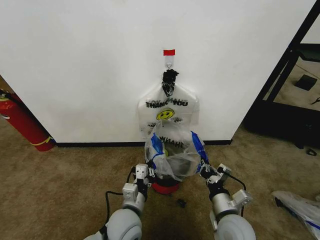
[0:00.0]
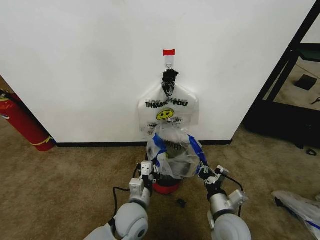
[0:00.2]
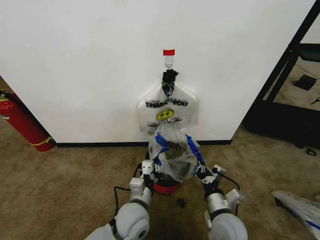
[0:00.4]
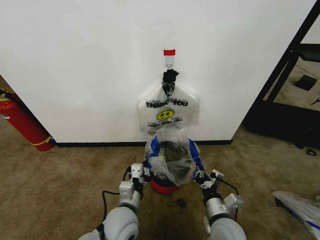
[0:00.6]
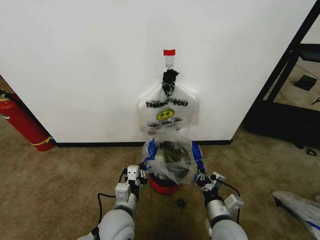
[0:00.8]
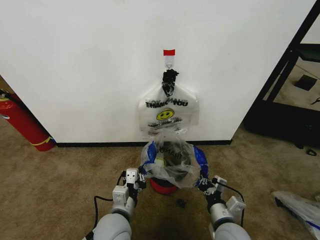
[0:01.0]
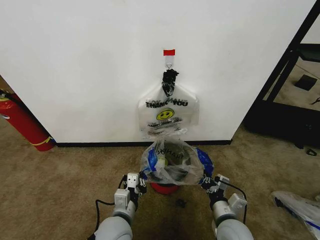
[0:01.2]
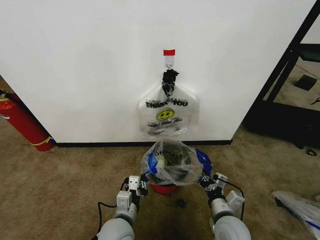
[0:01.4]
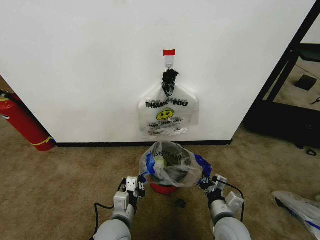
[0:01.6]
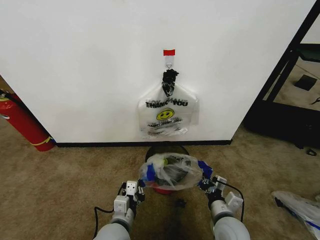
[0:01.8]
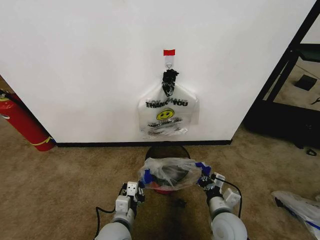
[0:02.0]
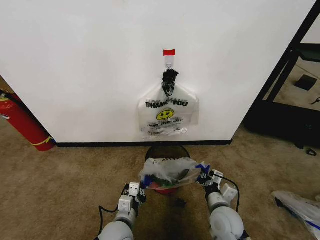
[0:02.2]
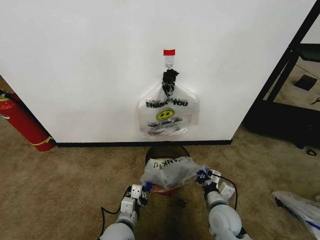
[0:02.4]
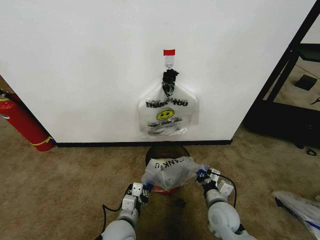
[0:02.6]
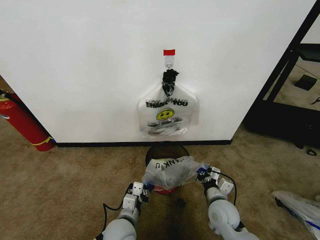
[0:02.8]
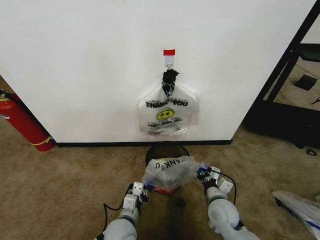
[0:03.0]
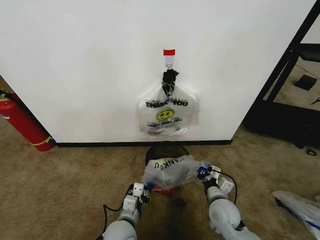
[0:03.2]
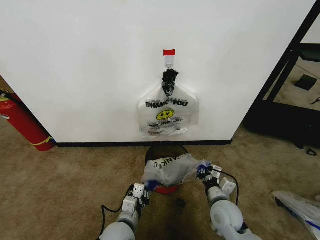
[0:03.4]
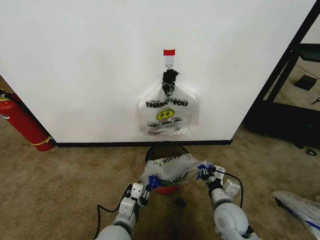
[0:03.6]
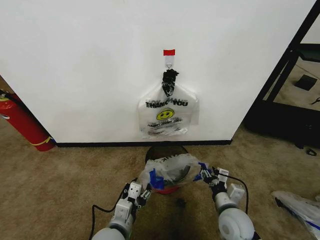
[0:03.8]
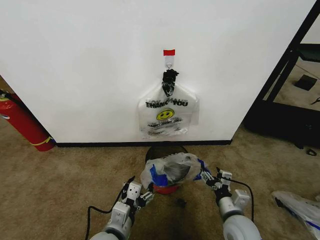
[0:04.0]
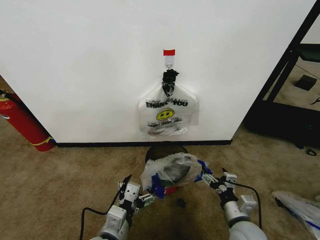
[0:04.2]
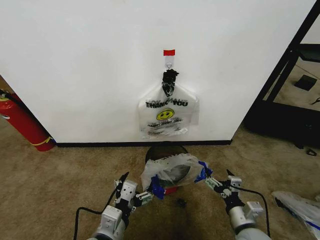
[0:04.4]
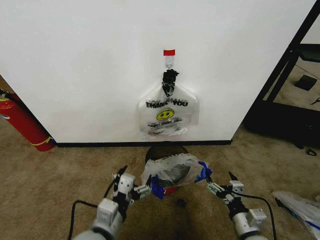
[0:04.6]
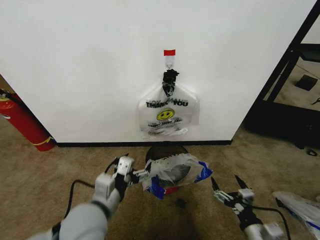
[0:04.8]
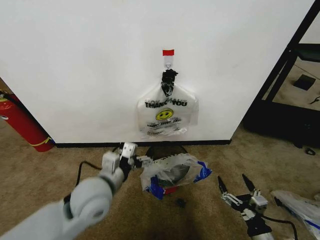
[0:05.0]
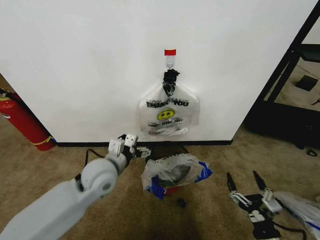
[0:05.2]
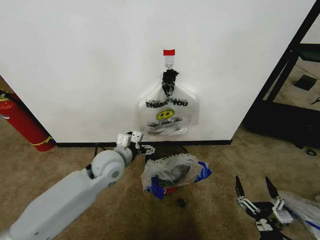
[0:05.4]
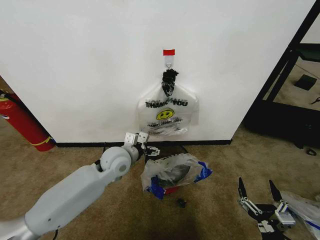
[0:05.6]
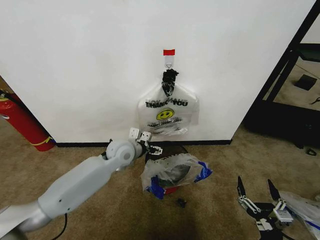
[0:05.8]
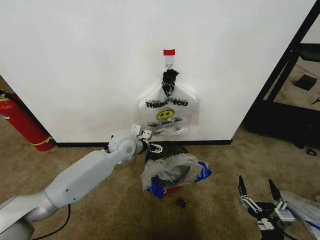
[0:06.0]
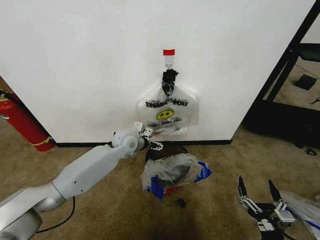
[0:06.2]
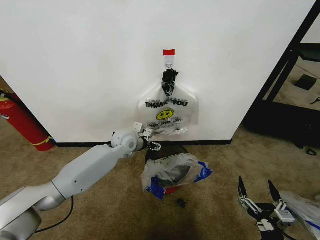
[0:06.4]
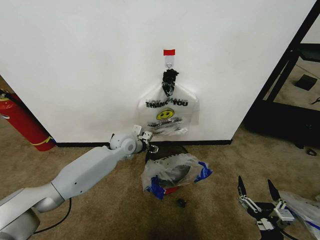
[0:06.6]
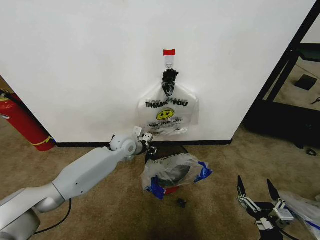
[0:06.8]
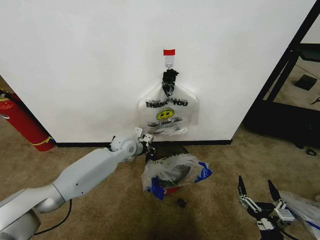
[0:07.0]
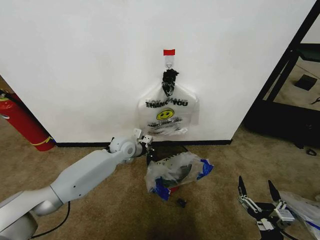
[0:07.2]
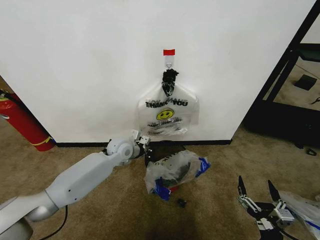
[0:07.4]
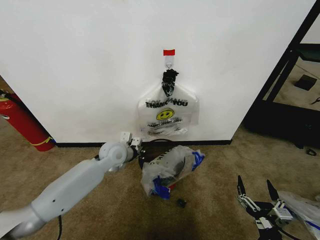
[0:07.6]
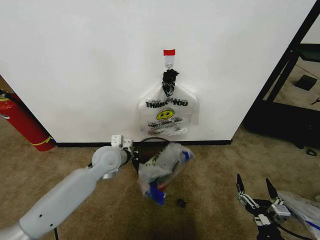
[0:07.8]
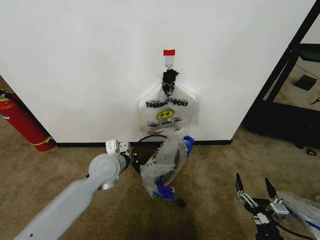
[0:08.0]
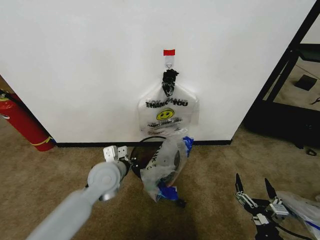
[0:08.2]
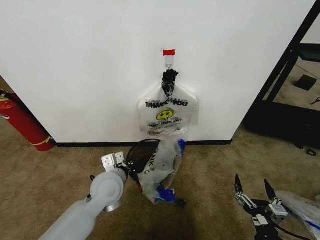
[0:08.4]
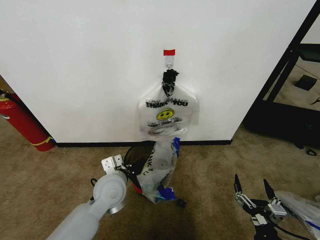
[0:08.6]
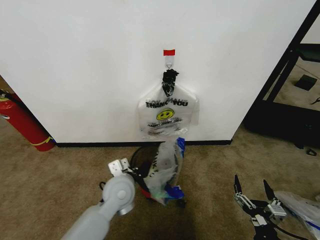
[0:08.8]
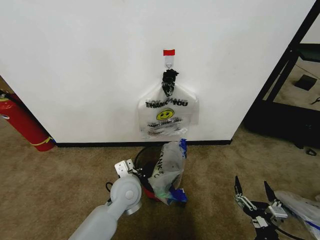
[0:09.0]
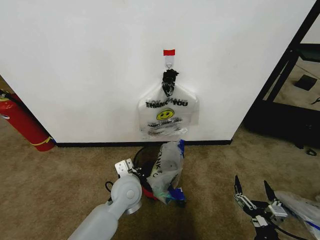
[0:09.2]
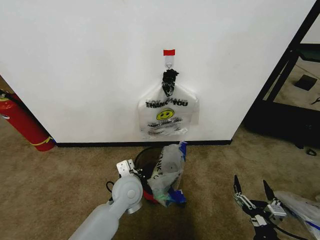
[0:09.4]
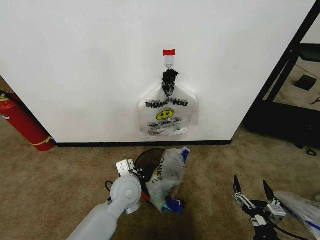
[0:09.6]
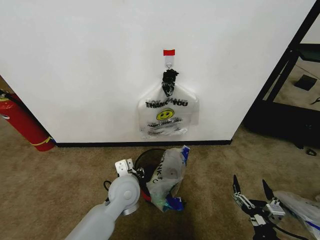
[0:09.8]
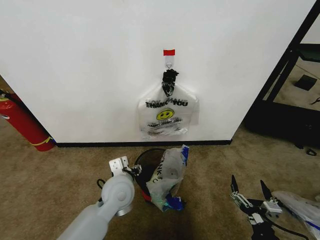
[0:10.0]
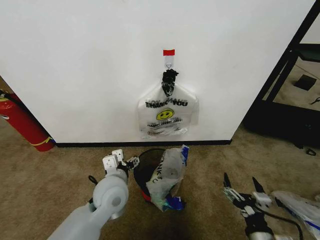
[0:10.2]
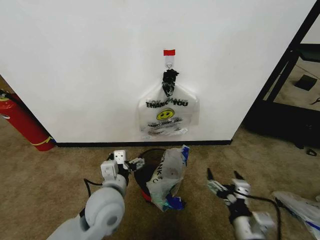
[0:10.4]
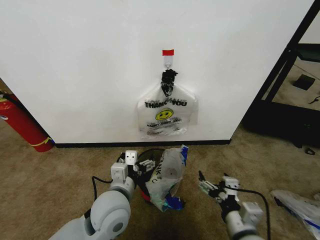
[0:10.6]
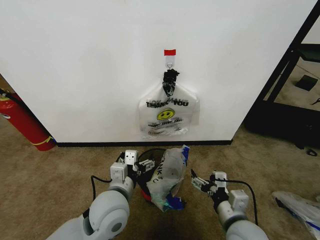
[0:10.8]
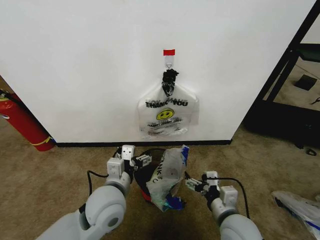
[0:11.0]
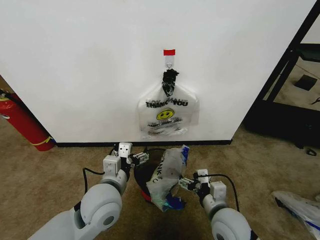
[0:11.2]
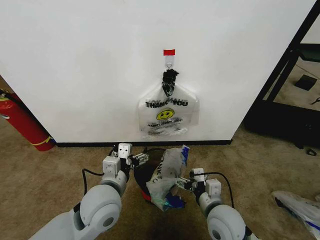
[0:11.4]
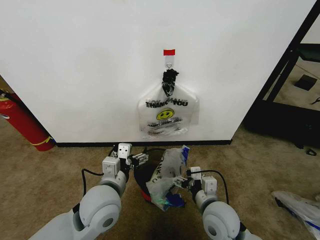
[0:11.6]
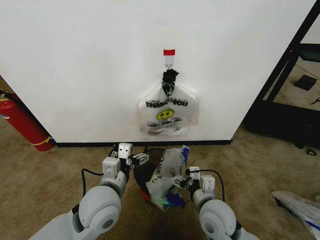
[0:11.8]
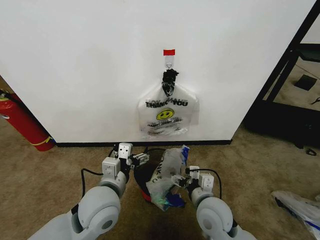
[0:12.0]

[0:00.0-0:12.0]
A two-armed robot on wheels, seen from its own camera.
Task of the whole recording: Pick up the garbage bag from the wall and place it over the trash bin.
0.0 to 1.6 s: The grippers make only small movements.
1.6 to 3.0 s: The left gripper changes place by about 5 cm. Meanwhile the right gripper heads forward, covering some 5 cm.
3.0 to 4.4 s: The left gripper is displaced upward and backward by roughly 15 cm, and opens; the right gripper goes some 10 cm backward and to the right, and opens its fingers.
4.4 to 6.0 s: The left gripper travels forward by roughly 30 cm, while the right gripper is displaced backward by roughly 10 cm.
6.0 to 7.6 s: The left gripper closes its fingers.
7.6 to 9.0 s: The left gripper shifts roughly 15 cm backward and to the right.
9.0 to 10.4 s: The left gripper goes some 10 cm backward and upward, and opens its fingers; the right gripper is displaced upward and to the left by about 10 cm.
10.4 to 12.0 s: The right gripper is displaced forward and to the left by approximately 15 cm.

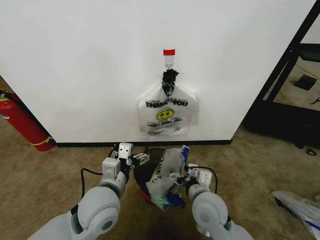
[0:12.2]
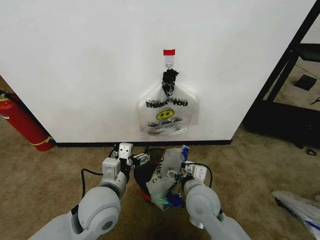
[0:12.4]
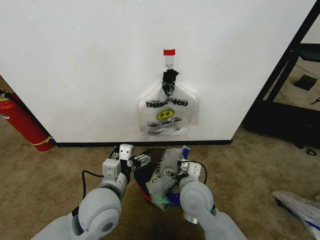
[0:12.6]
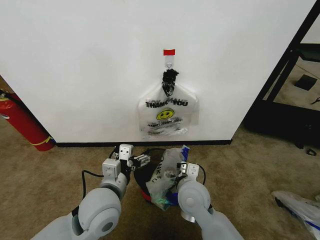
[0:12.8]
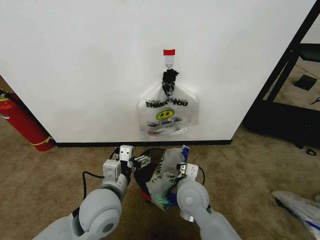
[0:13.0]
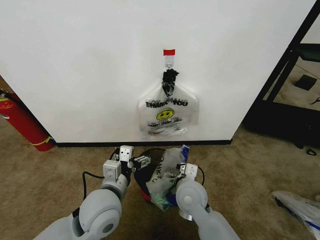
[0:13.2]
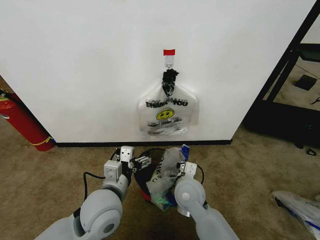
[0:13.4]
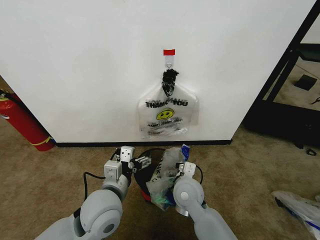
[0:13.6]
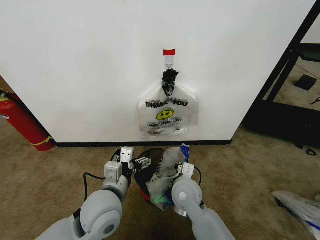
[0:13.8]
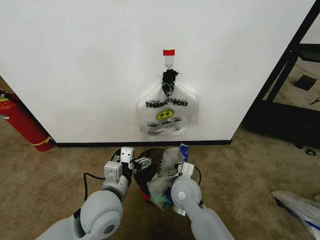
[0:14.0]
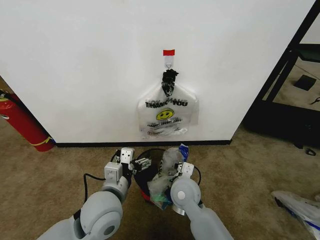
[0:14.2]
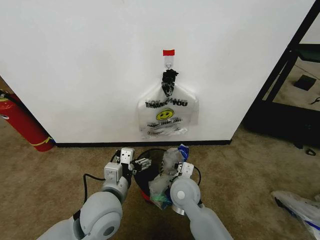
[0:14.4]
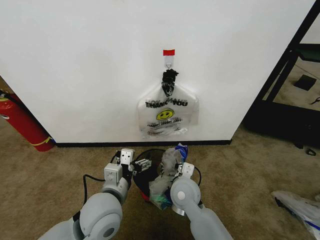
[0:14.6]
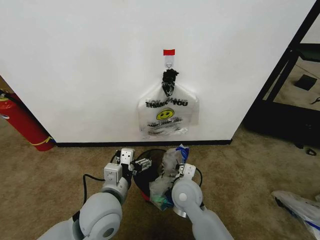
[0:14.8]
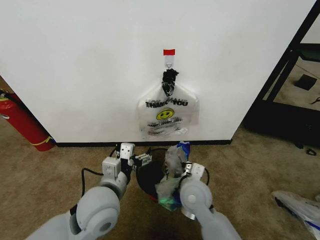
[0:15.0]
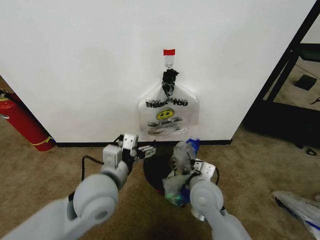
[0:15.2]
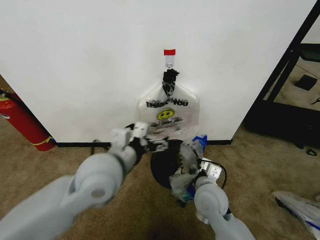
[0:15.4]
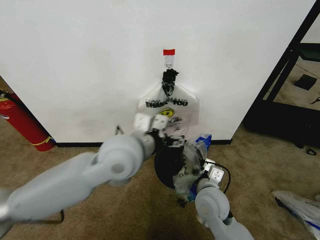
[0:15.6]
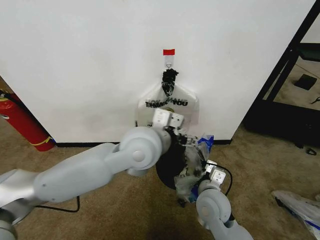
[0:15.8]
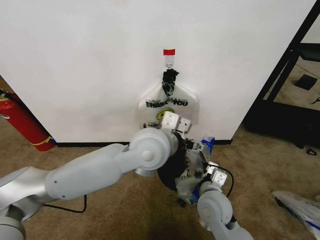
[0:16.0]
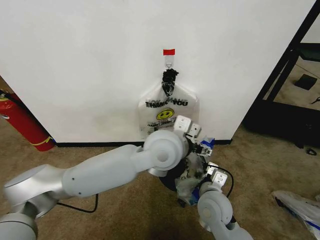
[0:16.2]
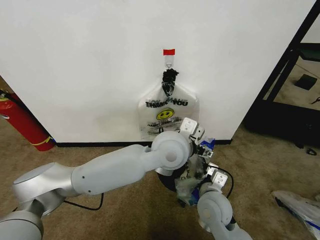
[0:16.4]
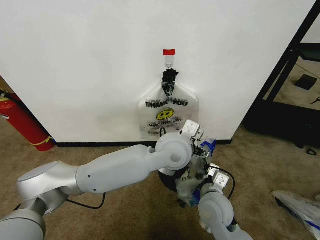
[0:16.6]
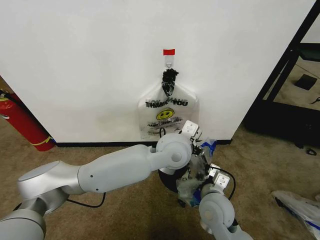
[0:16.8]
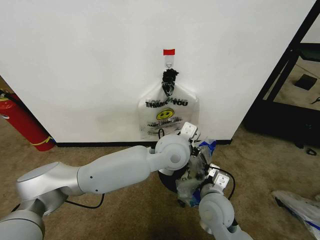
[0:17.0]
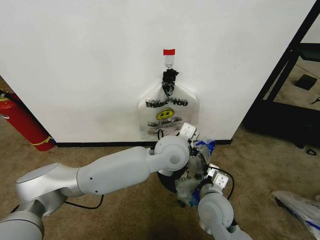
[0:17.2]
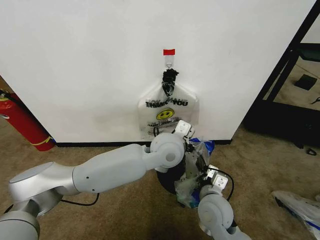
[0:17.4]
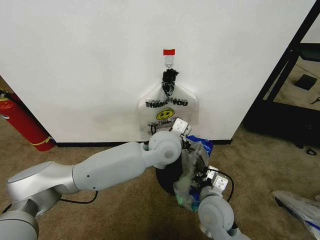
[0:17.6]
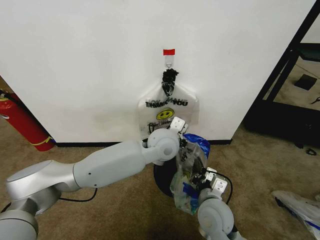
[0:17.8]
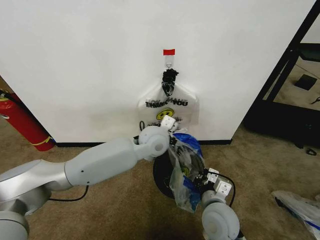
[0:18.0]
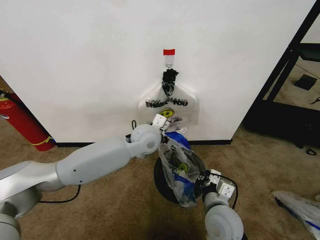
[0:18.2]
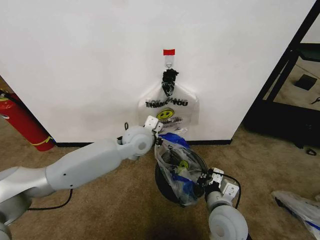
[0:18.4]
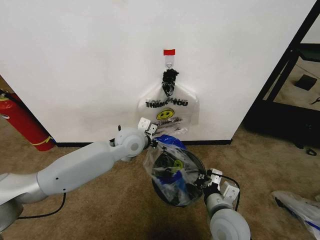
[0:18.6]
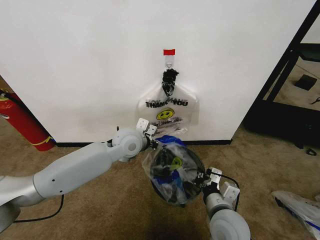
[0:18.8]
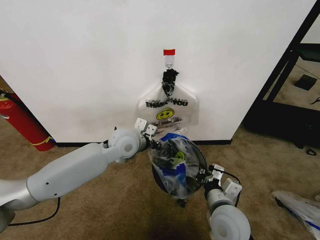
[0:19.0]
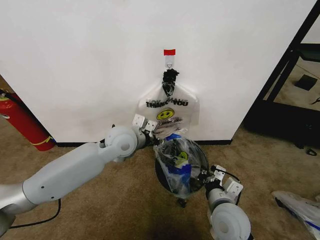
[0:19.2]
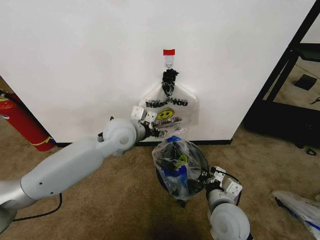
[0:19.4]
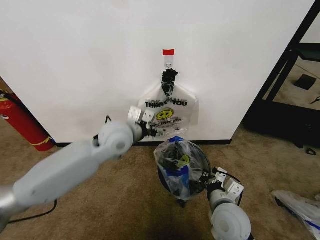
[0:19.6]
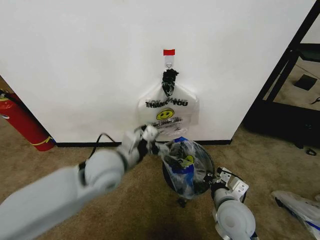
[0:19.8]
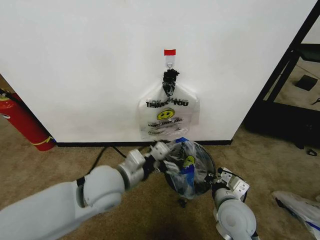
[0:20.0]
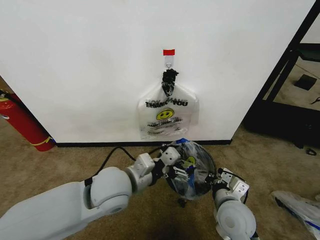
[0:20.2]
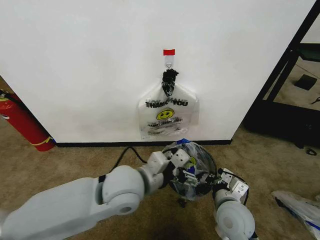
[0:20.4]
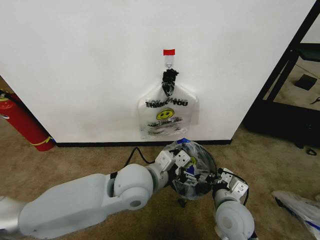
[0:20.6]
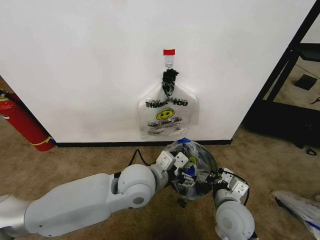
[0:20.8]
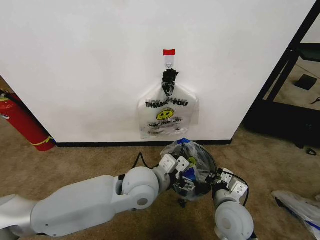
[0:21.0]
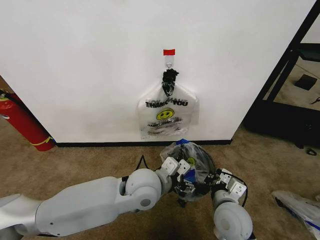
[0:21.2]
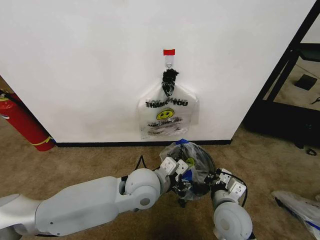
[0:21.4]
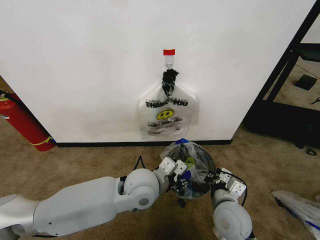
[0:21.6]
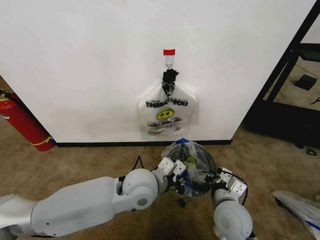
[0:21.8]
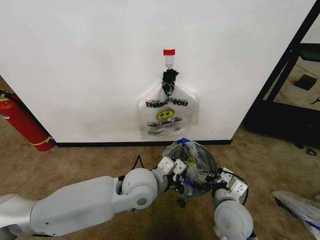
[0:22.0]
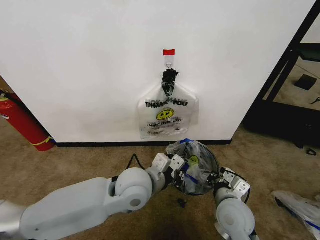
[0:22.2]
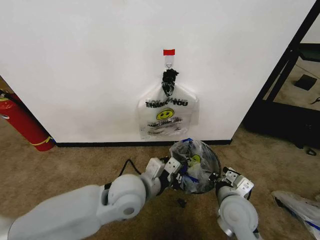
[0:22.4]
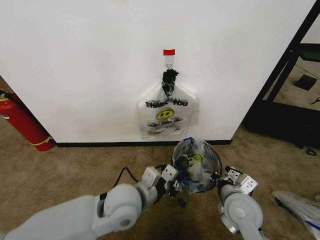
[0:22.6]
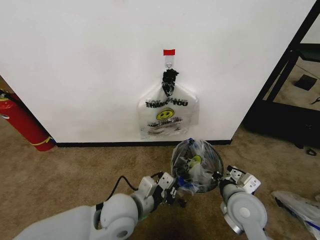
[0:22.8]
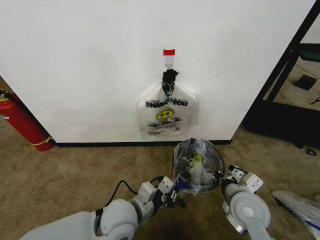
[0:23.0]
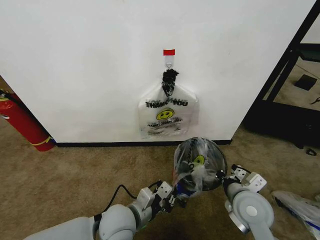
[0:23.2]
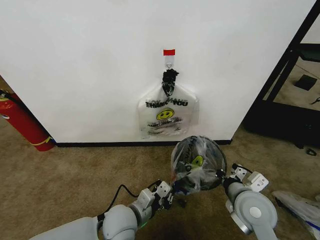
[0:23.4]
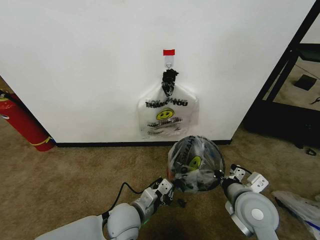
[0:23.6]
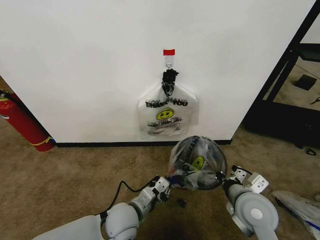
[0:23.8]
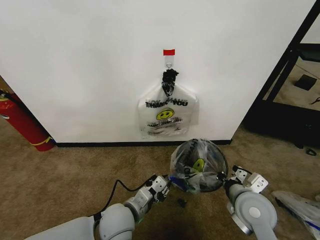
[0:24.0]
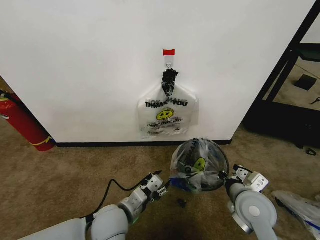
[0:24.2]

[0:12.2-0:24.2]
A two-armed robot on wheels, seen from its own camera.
Task of the whole recording: Pick up the garbage bag from the wall and place it over the trash bin.
12.2 to 13.8 s: The right gripper is displaced to the left by roughly 5 cm.
13.8 to 15.2 s: The right gripper travels to the right by some 5 cm, and closes up. Meanwhile the left gripper moves about 5 cm.
15.2 to 16.6 s: The left gripper is displaced to the right and forward by roughly 20 cm.
16.6 to 18.2 s: The left gripper heads forward and to the left, covering roughly 10 cm, and closes up.
18.2 to 19.8 s: The left gripper goes roughly 15 cm to the left and backward, and opens up.
19.8 to 21.2 s: The left gripper moves to the right, about 10 cm.
21.2 to 22.6 s: The left gripper heads to the left, covering roughly 5 cm, and closes its fingers.
22.6 to 24.2 s: The left gripper travels downward by some 5 cm, and opens up.
